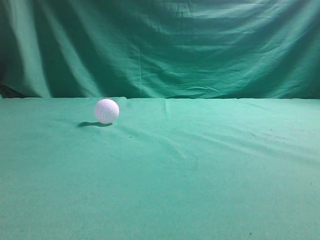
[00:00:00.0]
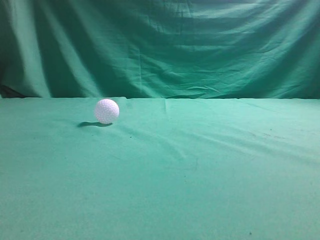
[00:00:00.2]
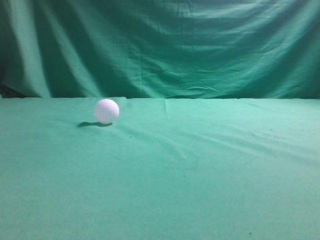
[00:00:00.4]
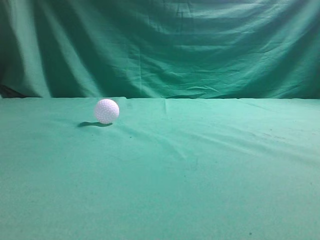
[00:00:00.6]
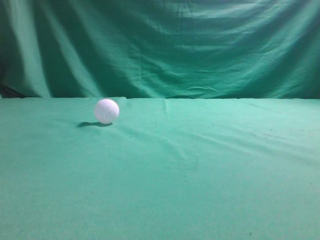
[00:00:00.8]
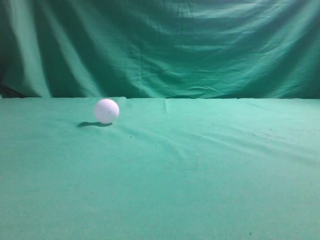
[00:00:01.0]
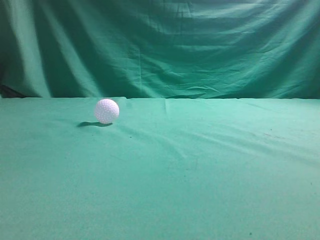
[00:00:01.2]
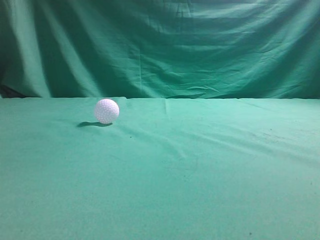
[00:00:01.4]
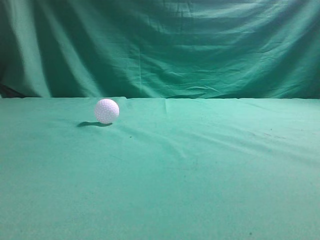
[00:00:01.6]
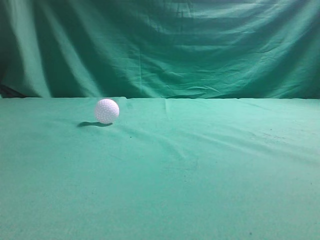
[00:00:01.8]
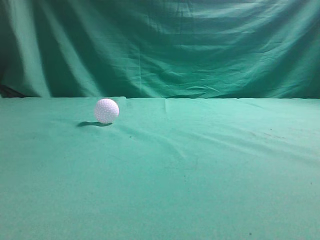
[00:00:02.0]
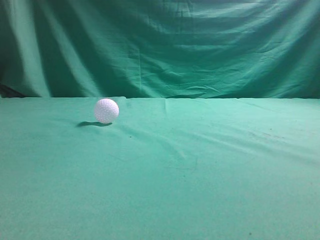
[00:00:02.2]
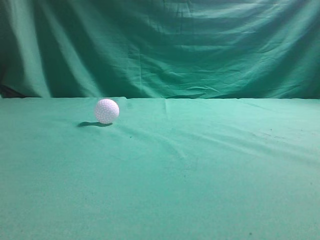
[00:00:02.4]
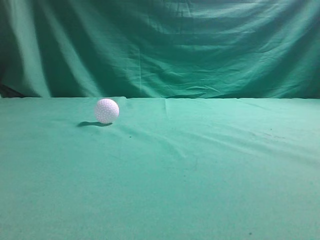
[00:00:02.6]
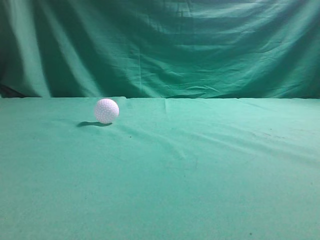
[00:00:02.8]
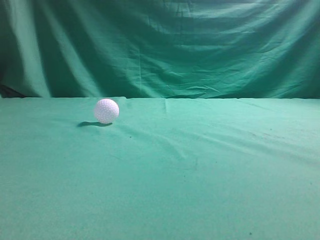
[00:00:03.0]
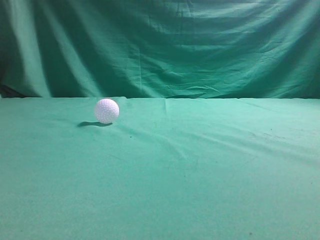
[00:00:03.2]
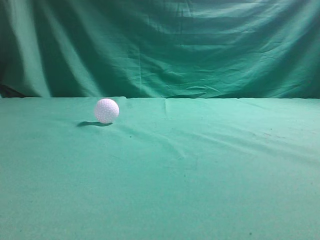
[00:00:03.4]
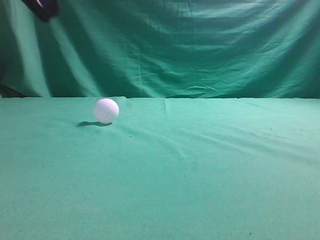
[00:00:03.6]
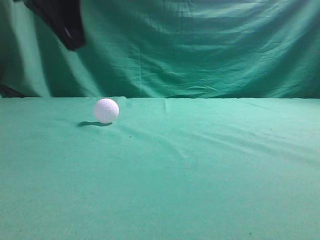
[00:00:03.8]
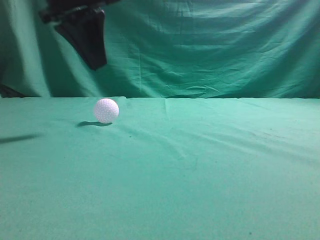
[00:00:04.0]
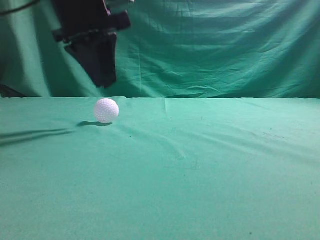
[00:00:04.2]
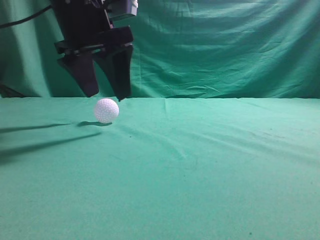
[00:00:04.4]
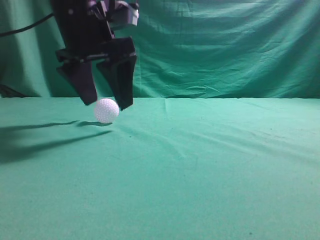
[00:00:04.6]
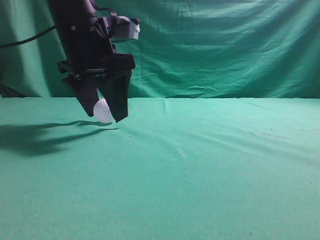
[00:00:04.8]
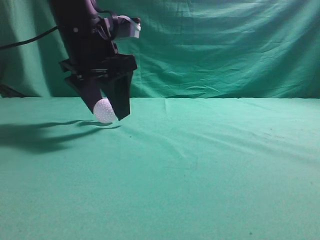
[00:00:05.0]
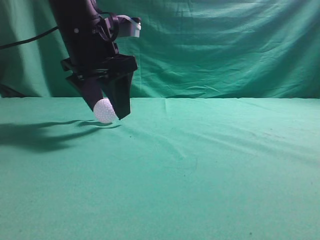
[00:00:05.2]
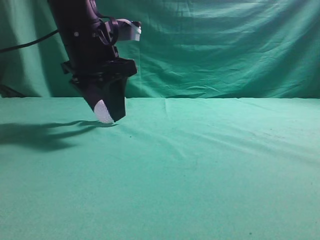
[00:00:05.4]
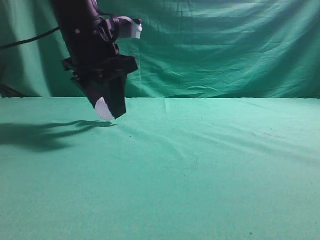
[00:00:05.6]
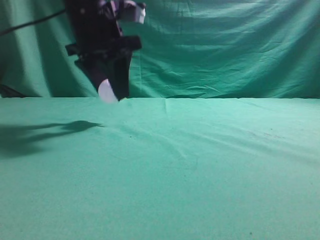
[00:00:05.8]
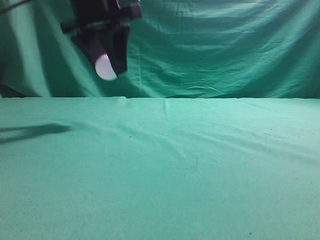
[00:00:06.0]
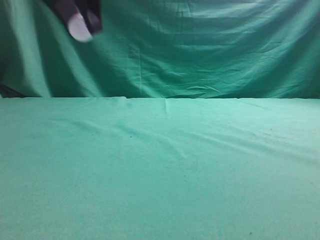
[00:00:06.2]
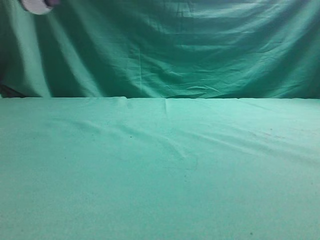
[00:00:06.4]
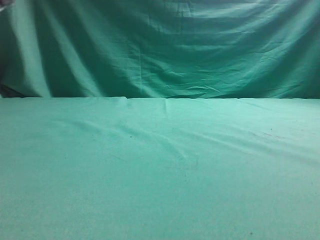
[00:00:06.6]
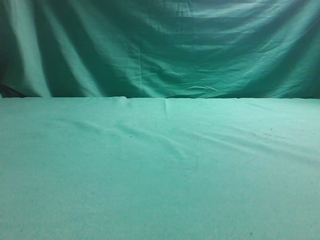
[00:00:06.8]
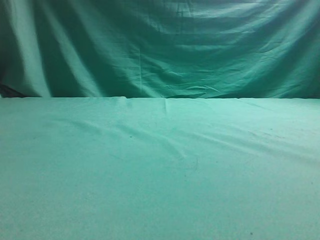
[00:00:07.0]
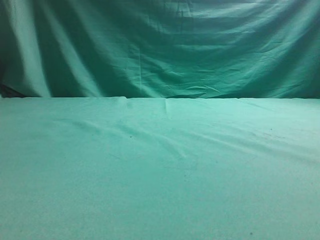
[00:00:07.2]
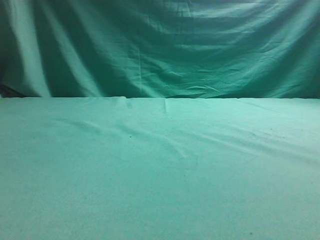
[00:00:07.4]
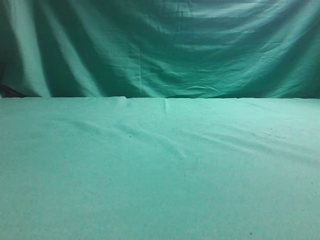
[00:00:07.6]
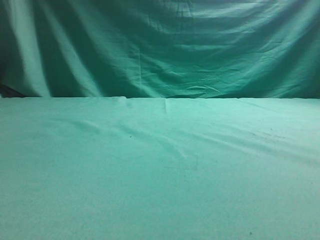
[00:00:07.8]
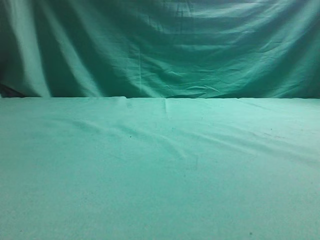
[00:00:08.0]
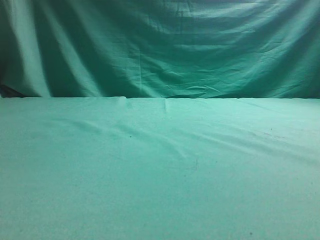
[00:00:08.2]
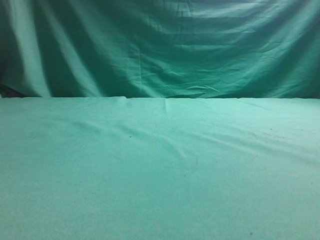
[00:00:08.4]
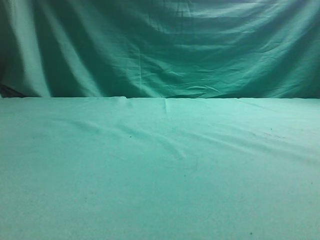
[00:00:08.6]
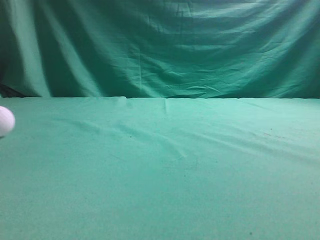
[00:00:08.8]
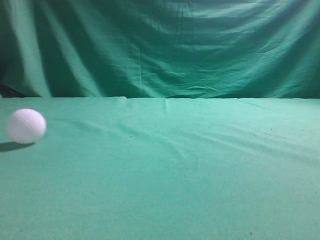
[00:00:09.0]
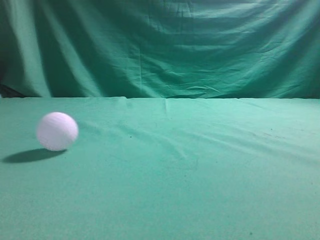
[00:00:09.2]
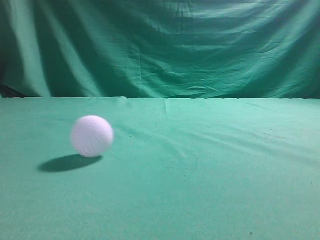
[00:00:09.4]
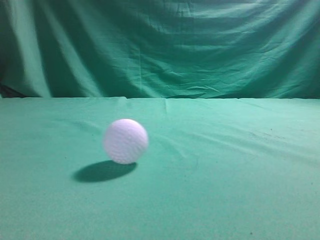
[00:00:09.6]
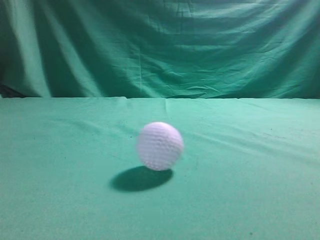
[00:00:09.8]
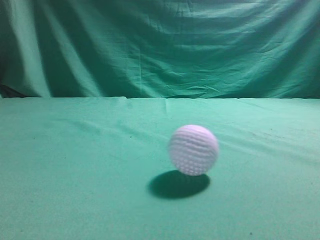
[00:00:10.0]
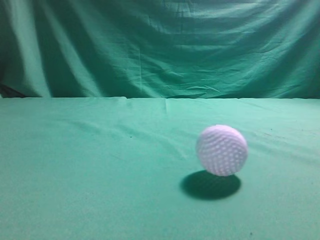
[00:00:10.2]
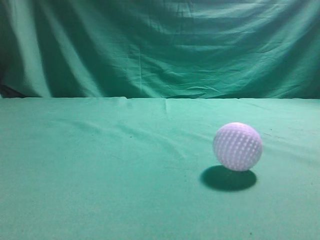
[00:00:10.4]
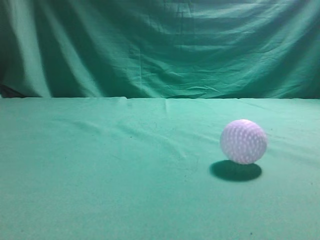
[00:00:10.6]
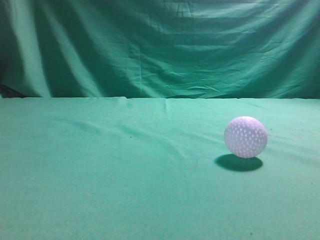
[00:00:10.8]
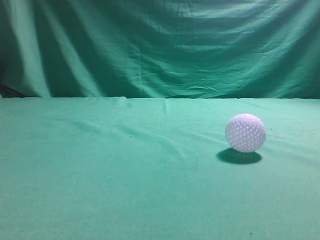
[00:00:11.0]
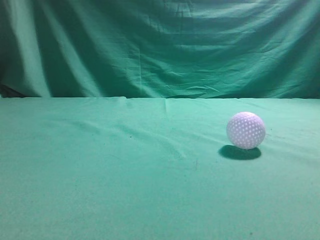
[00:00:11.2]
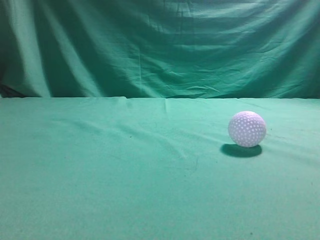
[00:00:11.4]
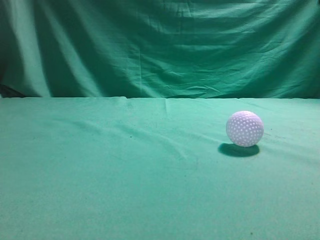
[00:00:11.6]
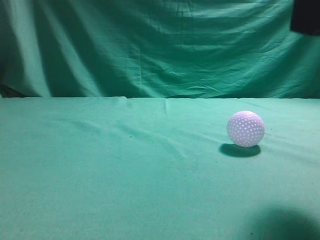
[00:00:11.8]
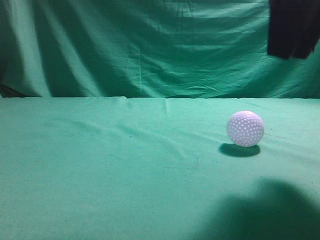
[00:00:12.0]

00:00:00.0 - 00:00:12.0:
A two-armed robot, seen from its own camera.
Task of the whole recording: pick up the ball and place it on the plate, then pick up the ball from the plate and put it in the center of the table.
Step, 00:00:00.0 - 00:00:05.8: Grab the spherical object with your left arm.
Step, 00:00:06.0 - 00:00:08.2: Place the sphere on the white object.
00:00:03.0 - 00:00:04.4: The left gripper shifts approximately 30 cm forward, to the right and downward, and opens its fingers.
00:00:04.4 - 00:00:06.0: The grippers make only small movements.
00:00:06.0 - 00:00:07.6: The left gripper shifts some 25 cm to the left.
00:00:07.6 - 00:00:09.0: The left gripper goes some 15 cm upward, and opens, then closes once more.
00:00:09.0 - 00:00:10.4: The left gripper moves backward, approximately 25 cm; the right gripper goes some 10 cm upward.
00:00:10.4 - 00:00:12.0: The right gripper heads forward and to the left, covering roughly 20 cm, and opens.

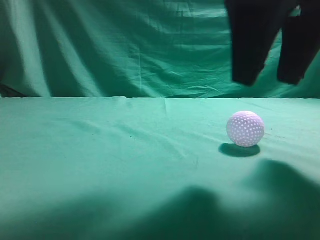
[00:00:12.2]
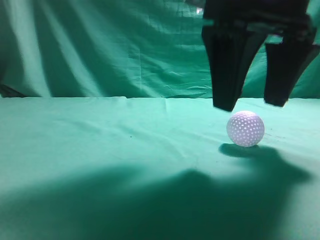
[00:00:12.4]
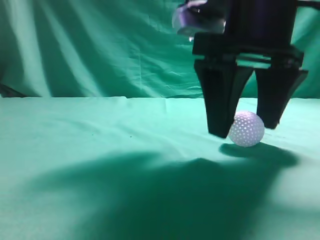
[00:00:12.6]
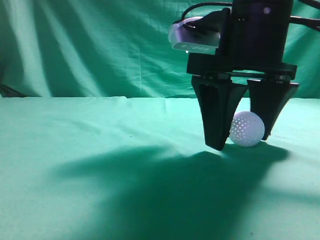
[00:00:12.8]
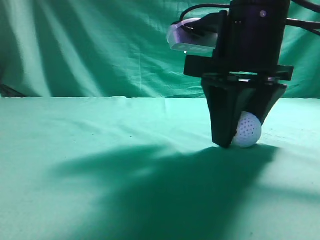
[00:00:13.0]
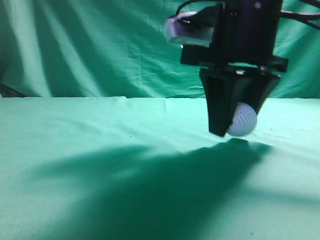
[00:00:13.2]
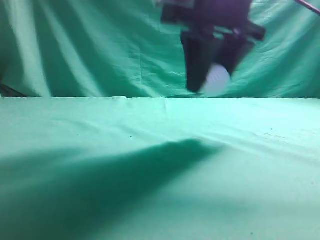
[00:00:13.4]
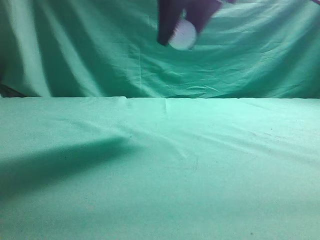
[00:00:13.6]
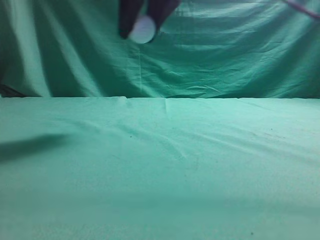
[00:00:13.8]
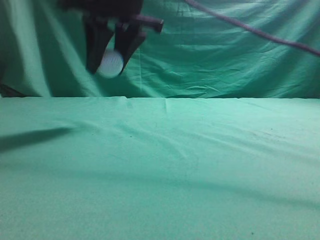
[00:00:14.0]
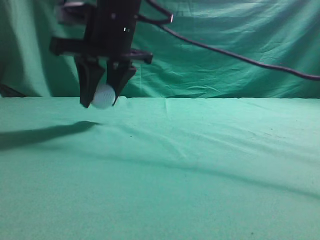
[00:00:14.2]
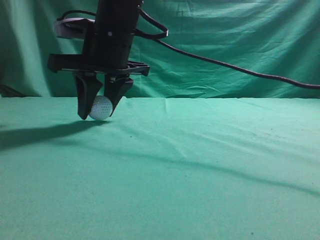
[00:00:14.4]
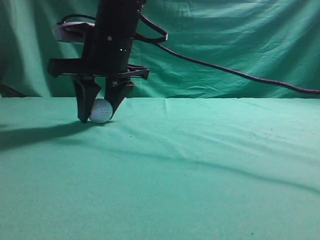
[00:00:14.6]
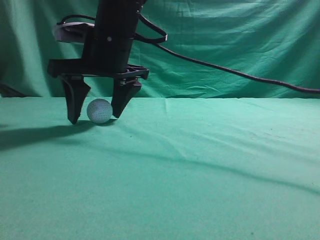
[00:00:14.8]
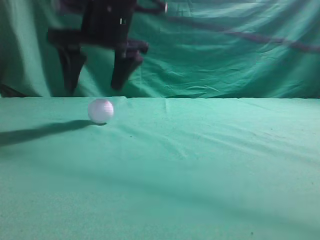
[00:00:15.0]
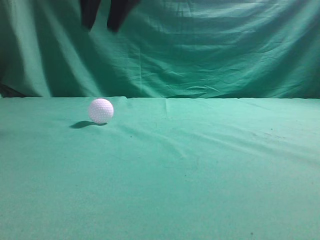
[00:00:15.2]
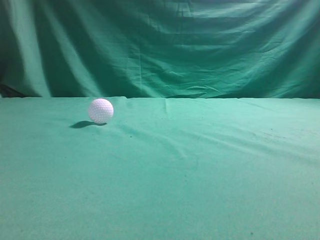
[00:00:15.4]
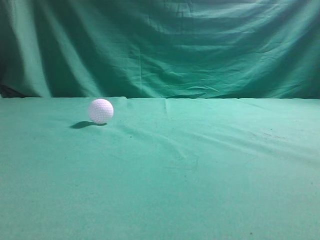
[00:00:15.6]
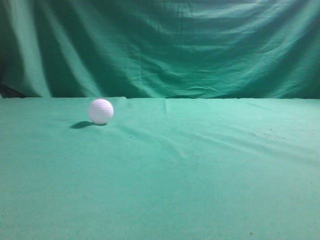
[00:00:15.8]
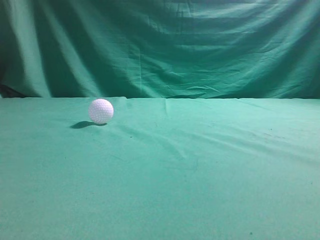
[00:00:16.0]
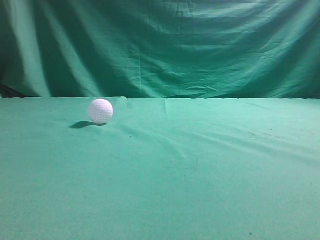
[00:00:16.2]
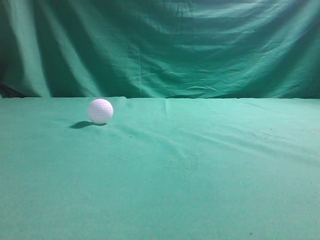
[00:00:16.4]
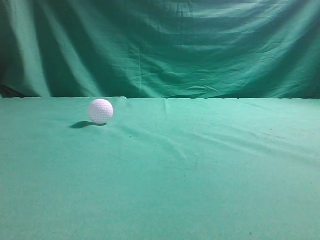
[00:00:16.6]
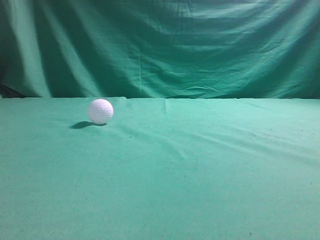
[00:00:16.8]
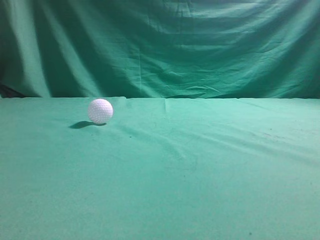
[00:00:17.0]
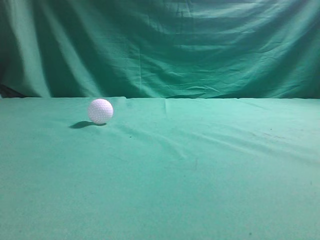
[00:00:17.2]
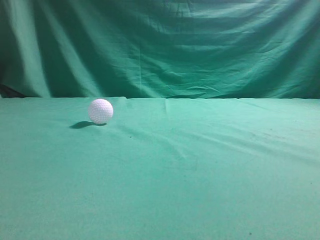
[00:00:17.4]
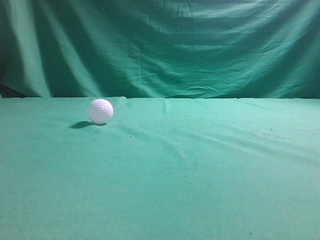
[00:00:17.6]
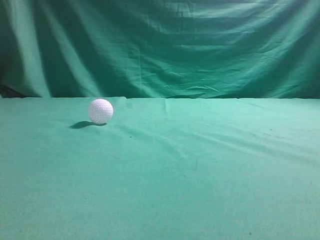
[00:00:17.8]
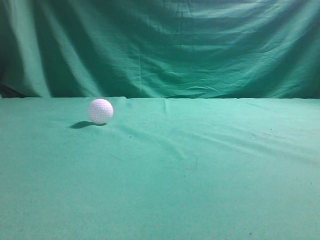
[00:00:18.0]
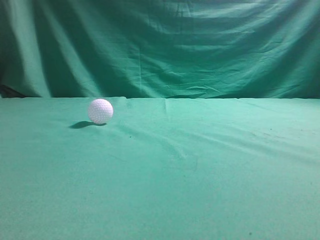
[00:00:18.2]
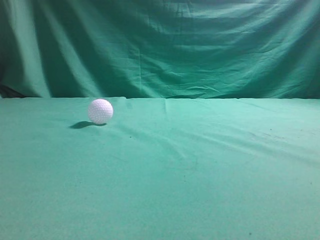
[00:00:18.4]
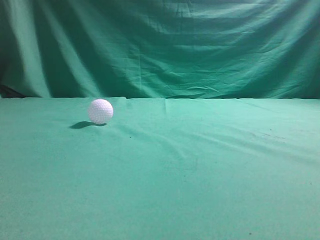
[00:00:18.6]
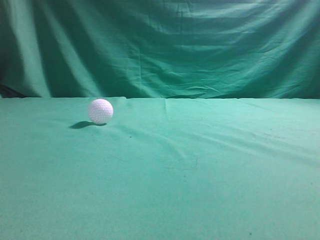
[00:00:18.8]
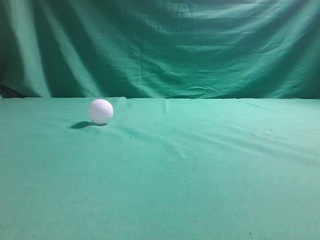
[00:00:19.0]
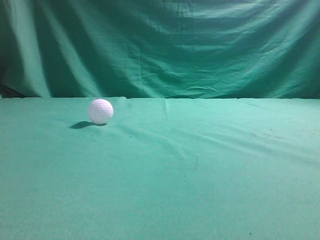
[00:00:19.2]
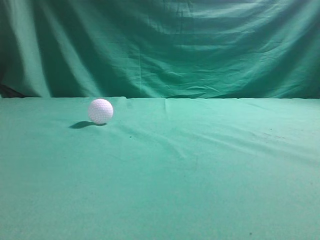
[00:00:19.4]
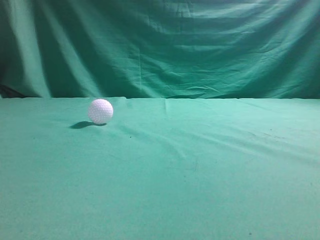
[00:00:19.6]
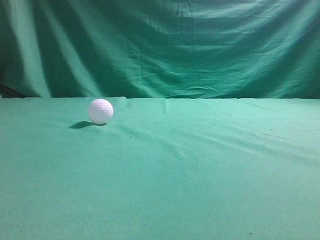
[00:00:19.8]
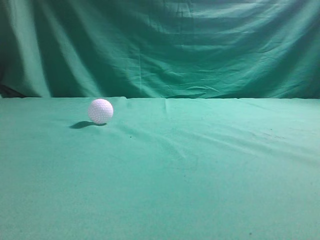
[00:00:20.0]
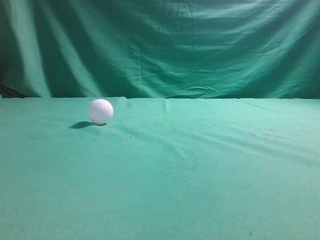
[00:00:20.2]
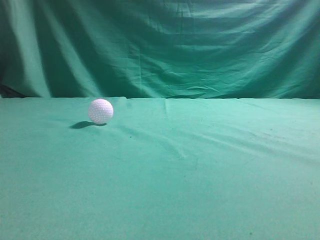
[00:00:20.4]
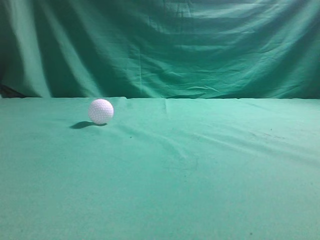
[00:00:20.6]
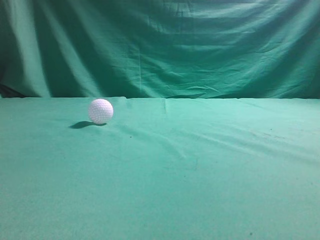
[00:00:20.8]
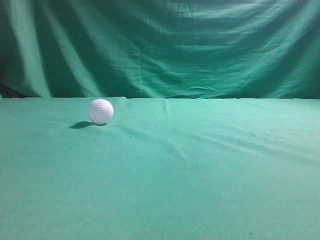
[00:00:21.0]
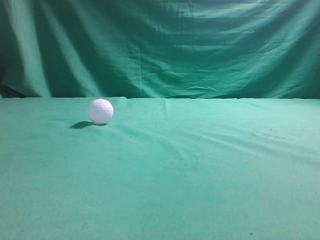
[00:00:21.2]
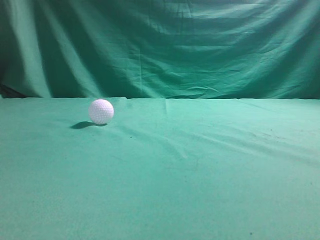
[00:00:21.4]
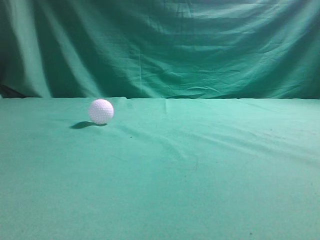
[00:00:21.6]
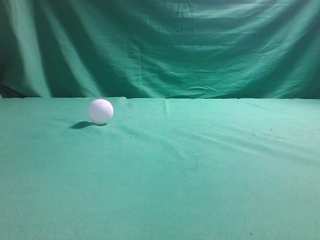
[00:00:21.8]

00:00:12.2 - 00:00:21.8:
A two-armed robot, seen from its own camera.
Task of the whole recording: pick up the ball and place it on the plate, then pick up the ball from the plate and put it in the center of the table.
Step, 00:00:13.6 - 00:00:15.0: Put the picked-up object on the table.
00:00:12.2 - 00:00:13.8: The right gripper heads to the left, forward and upward, covering some 15 cm, and closes.
00:00:13.8 - 00:00:15.4: The right gripper moves upward, approximately 10 cm, and closes.
